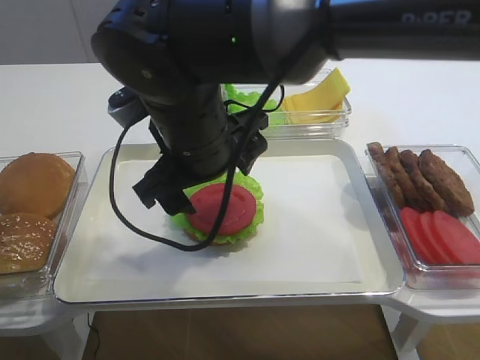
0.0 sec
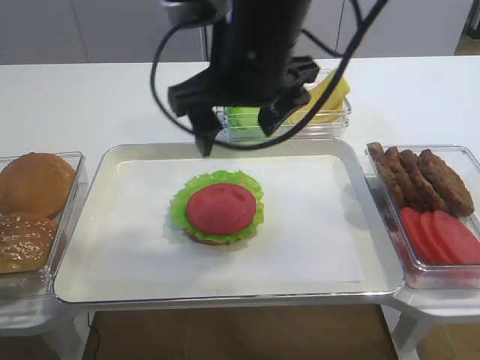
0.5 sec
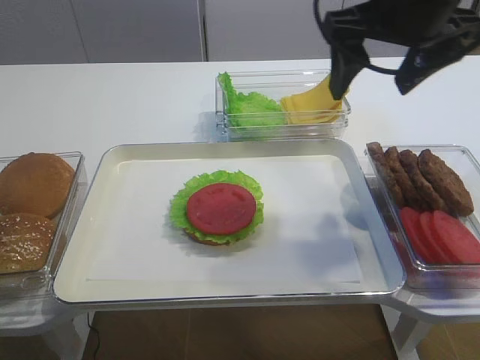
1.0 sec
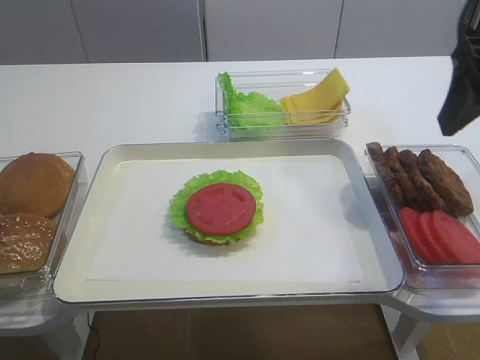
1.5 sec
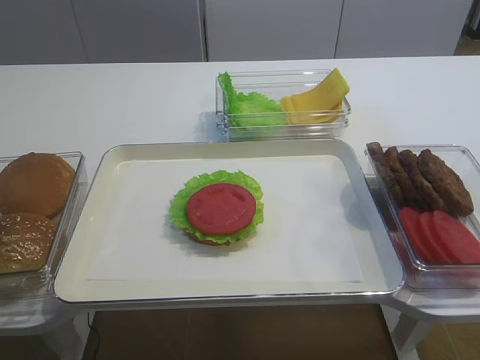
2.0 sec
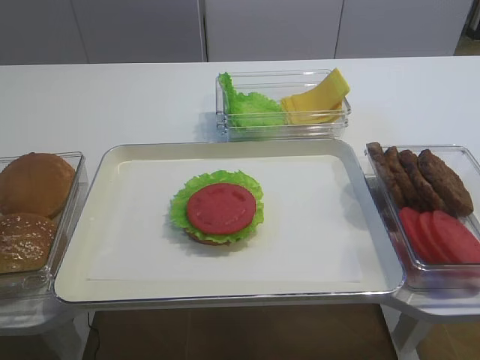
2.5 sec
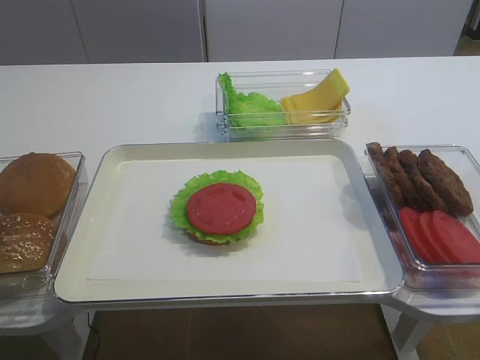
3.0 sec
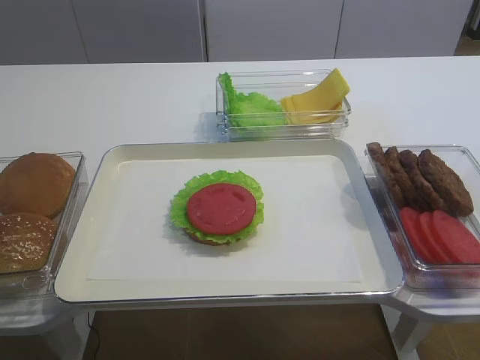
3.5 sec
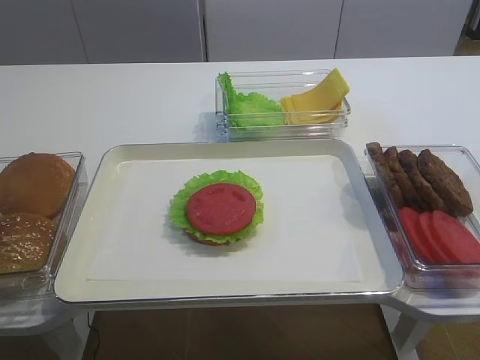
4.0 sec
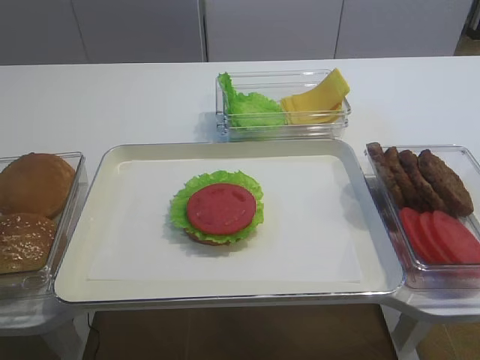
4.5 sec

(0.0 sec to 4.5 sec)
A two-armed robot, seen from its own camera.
0.0 sec - 2.0 sec: The right gripper moves to the right and backward, some 35 cm.

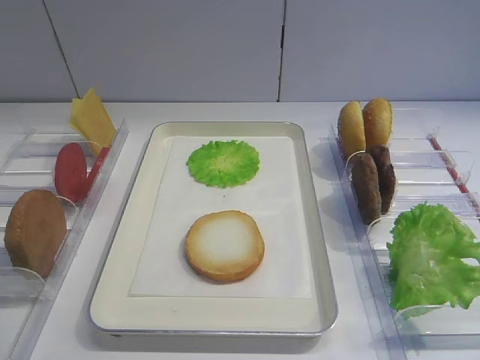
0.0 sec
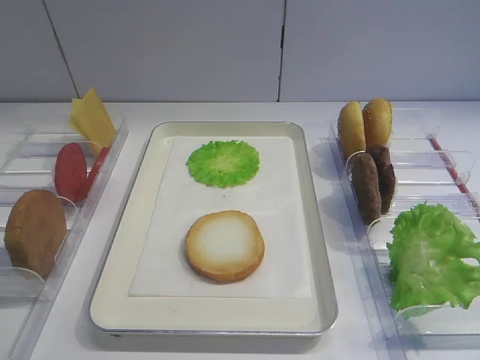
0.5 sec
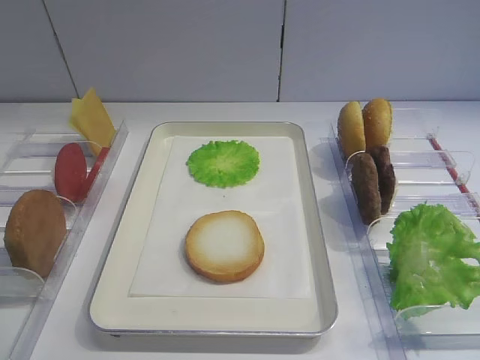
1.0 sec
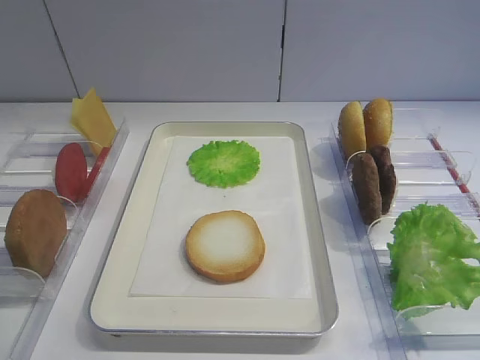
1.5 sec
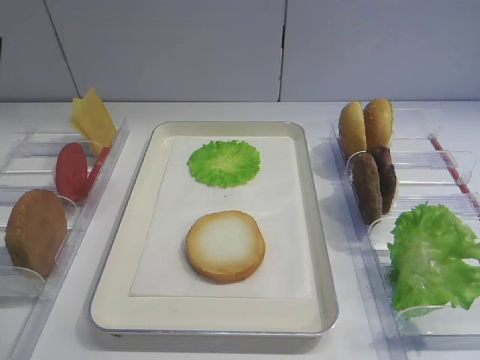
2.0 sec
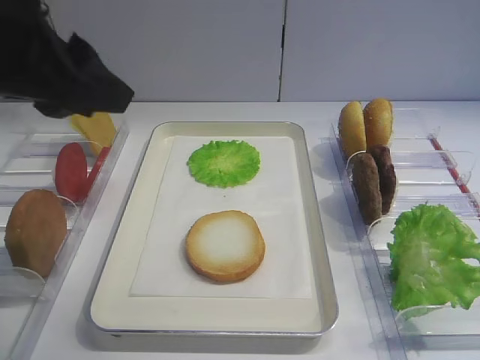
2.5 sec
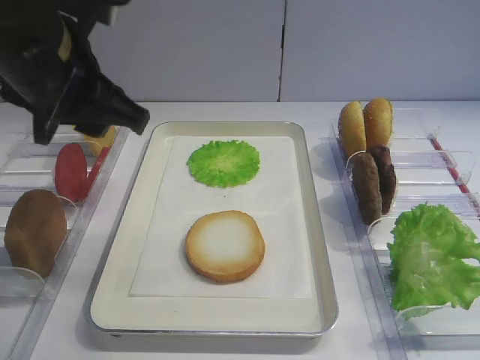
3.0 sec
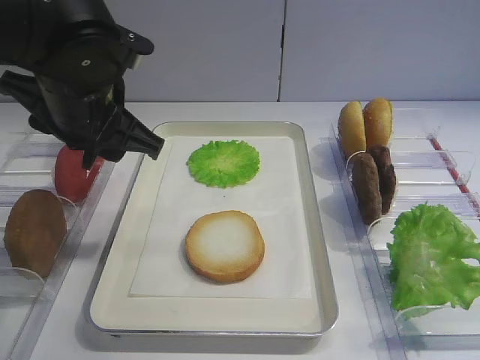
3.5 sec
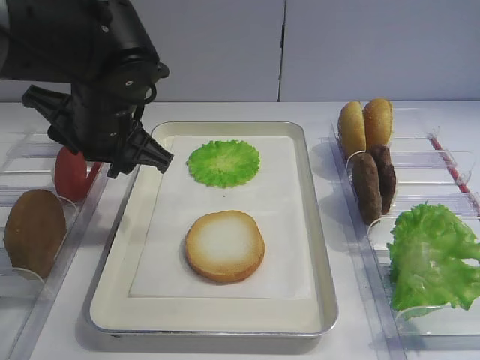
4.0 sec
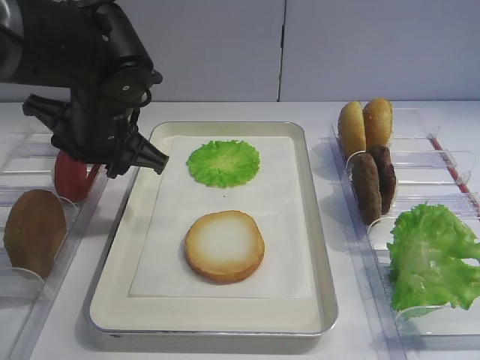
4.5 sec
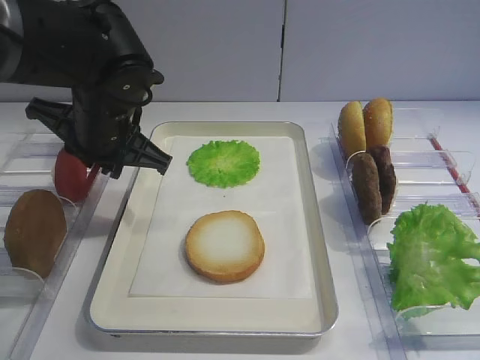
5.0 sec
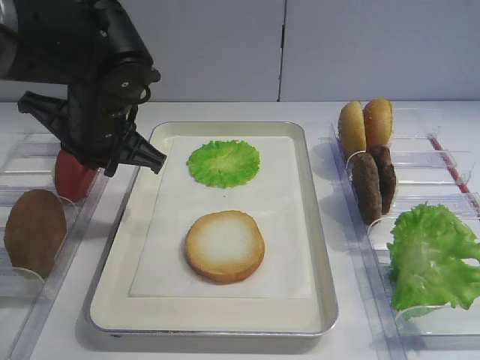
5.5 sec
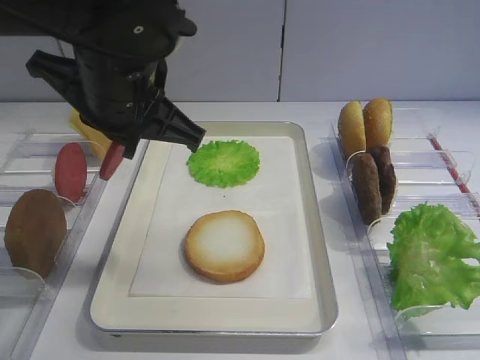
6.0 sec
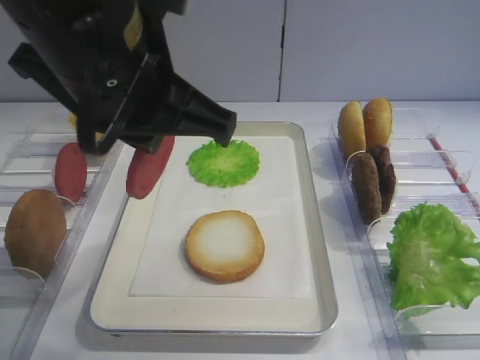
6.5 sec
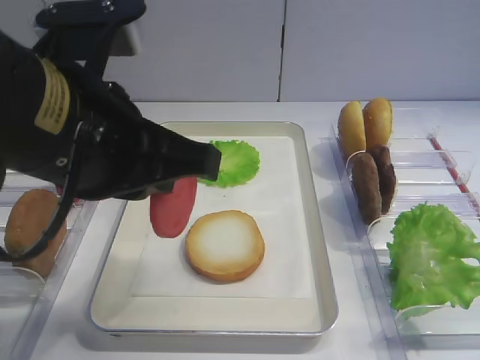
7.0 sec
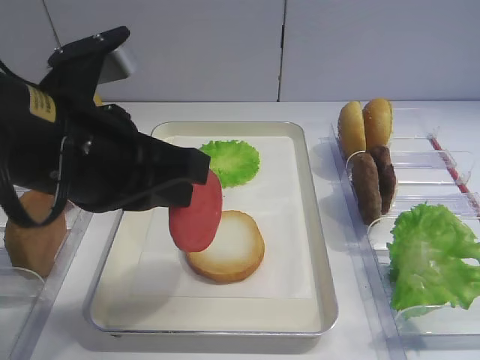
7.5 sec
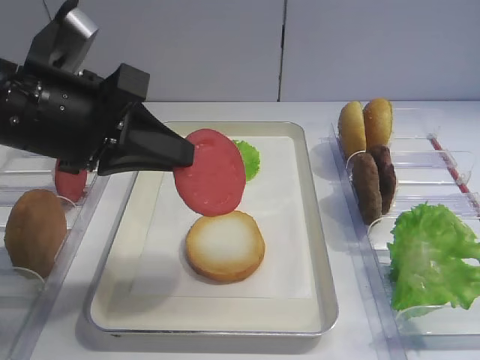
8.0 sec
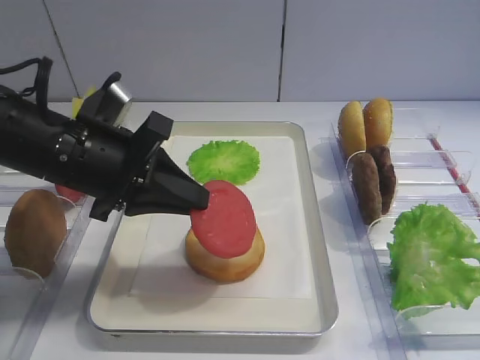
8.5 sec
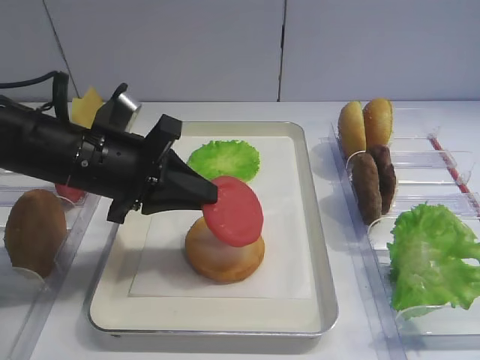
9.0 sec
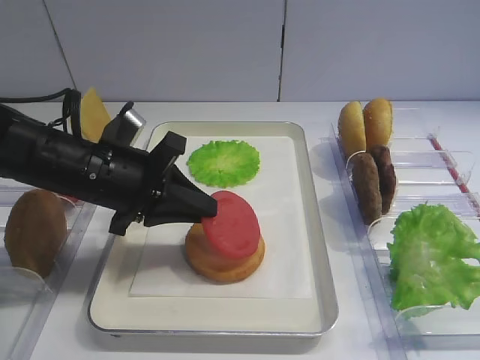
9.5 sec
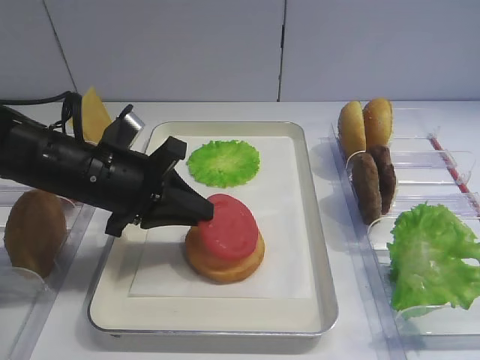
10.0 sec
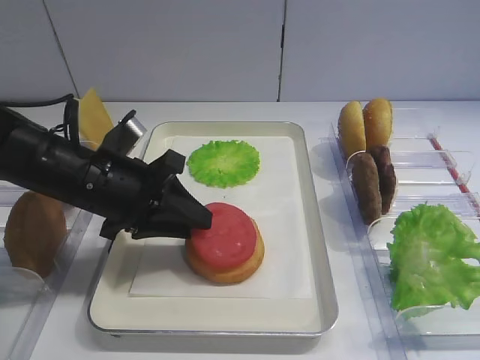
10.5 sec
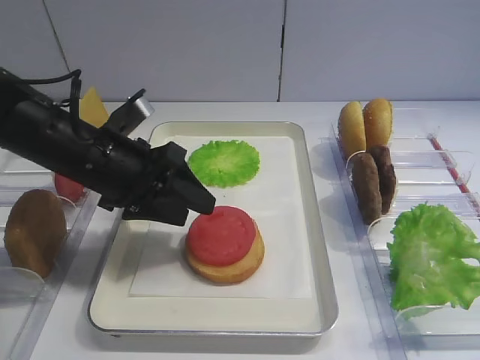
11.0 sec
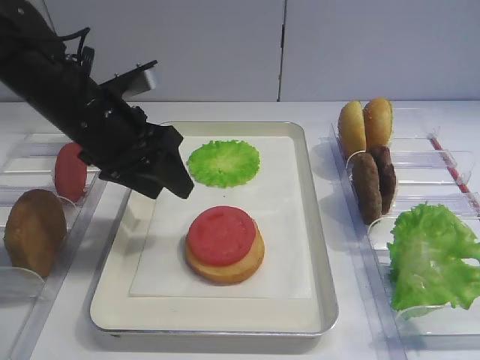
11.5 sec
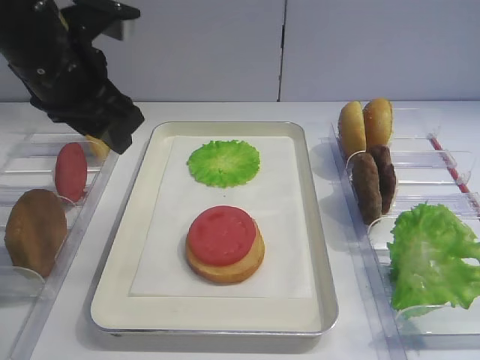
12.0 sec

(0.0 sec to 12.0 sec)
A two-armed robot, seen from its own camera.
Step, 0.0 sec - 5.5 sec: Pick up the tomato slice with the left gripper.
Step, 6.0 sec - 11.5 sec: Place the tomato slice on the bread slice with the left gripper.
2.0 sec - 4.0 sec: The left gripper travels forward, downward and to the right by approximately 25 cm.
4.0 sec - 6.0 sec: The left gripper goes approximately 5 cm upward, and closes.
6.0 sec - 8.0 sec: The left gripper is displaced to the left and backward by about 10 cm.
8.0 sec - 10.0 sec: The left gripper goes some 10 cm downward and forward.
10.0 sec - 12.0 sec: The left gripper goes roughly 10 cm upward, and opens its fingers.

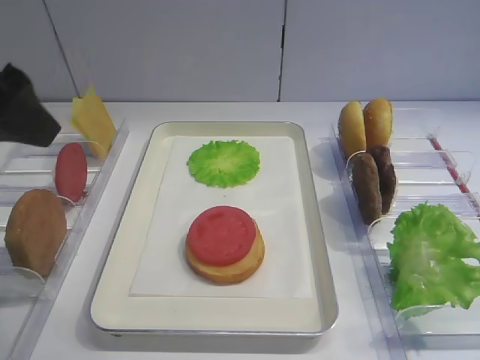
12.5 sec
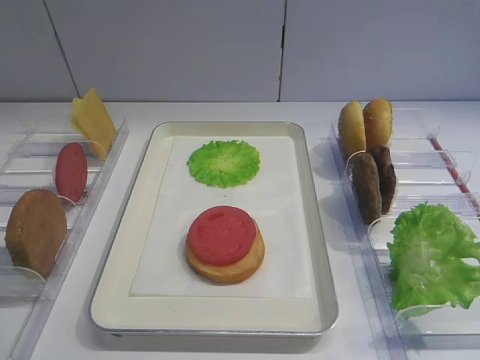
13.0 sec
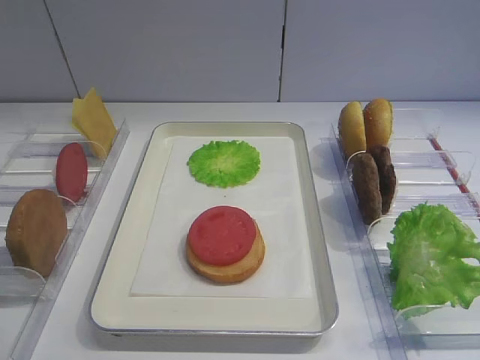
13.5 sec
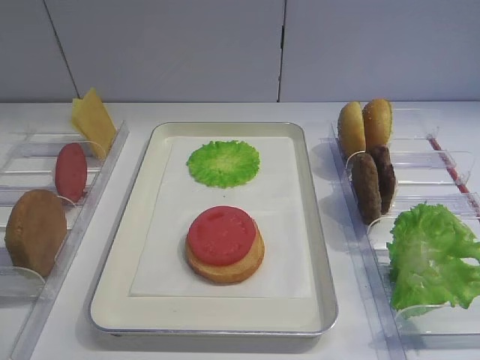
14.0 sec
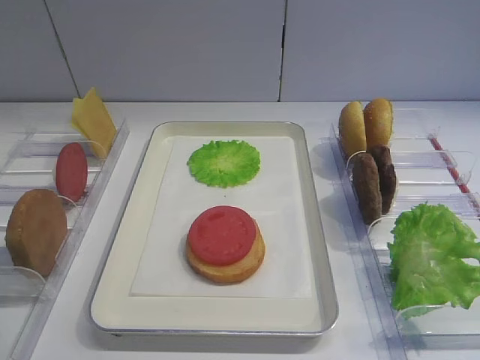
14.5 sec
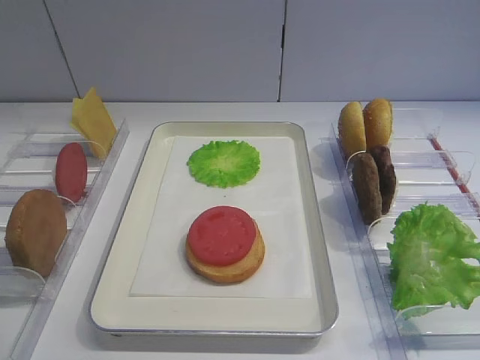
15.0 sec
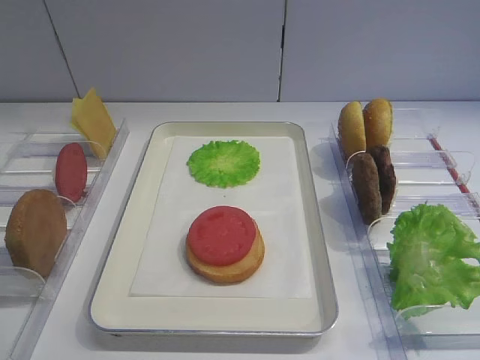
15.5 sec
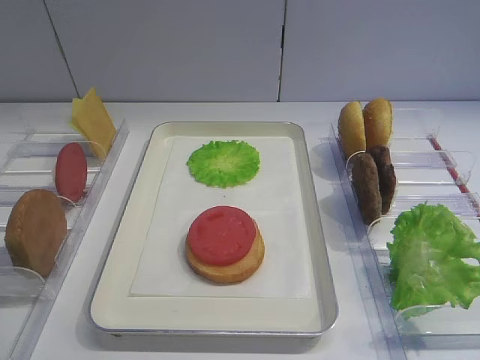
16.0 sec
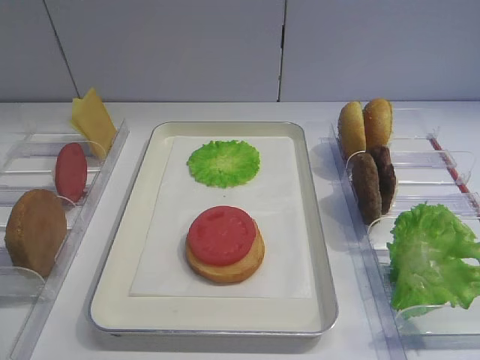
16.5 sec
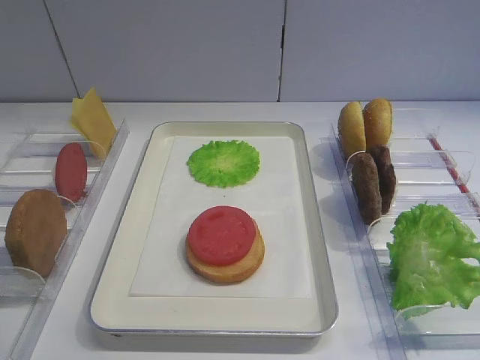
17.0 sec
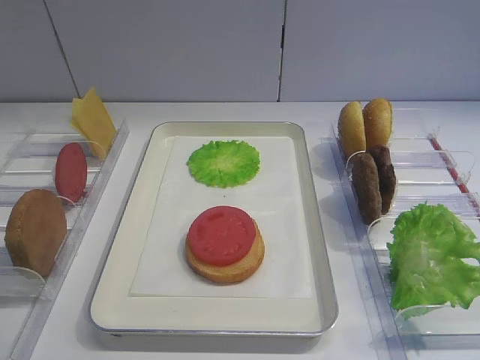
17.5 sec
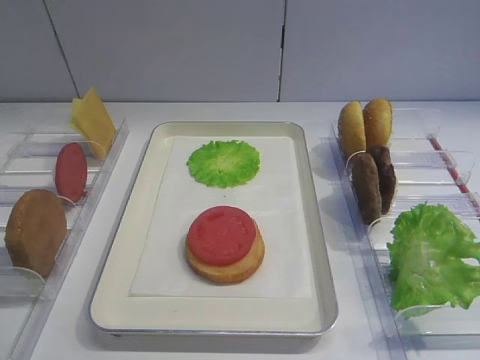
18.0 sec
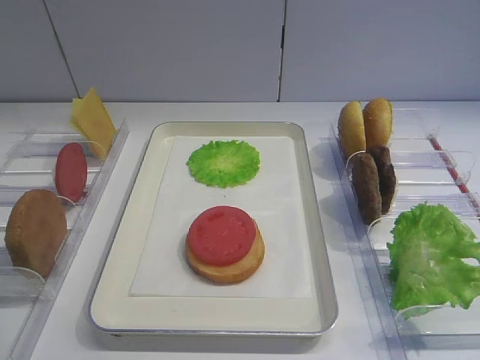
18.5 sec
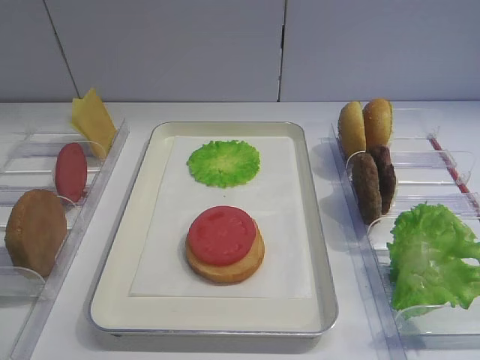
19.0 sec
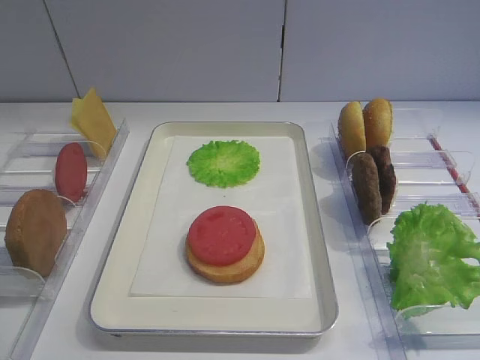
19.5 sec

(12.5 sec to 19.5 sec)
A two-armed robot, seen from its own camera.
12.5 sec - 14.5 sec: The left gripper goes approximately 25 cm backward, downward and to the left.
16.0 sec - 19.5 sec: Both grippers stay about where they are.

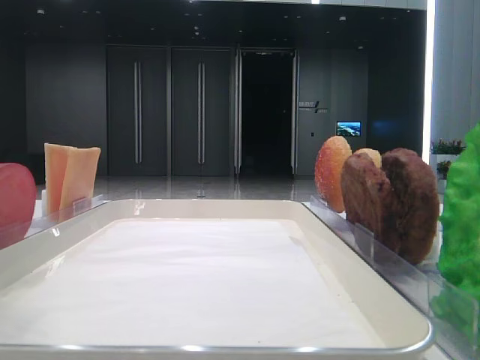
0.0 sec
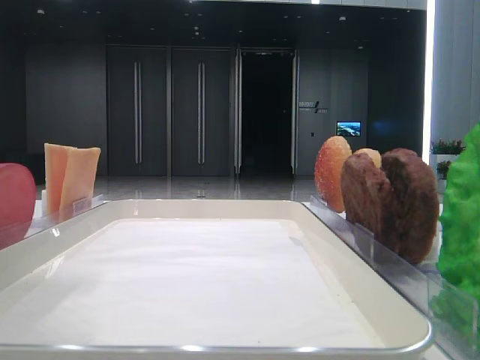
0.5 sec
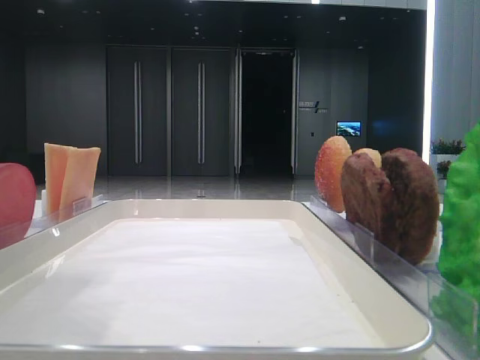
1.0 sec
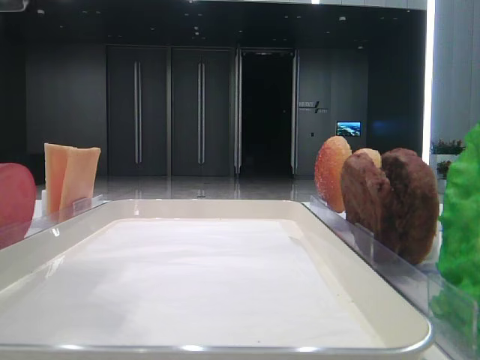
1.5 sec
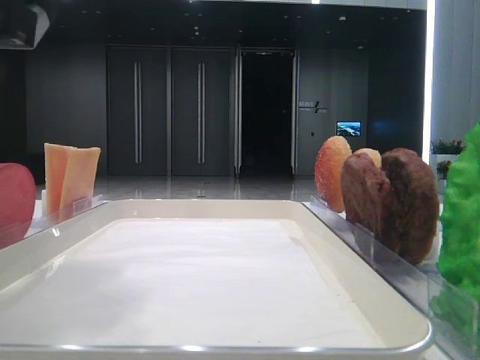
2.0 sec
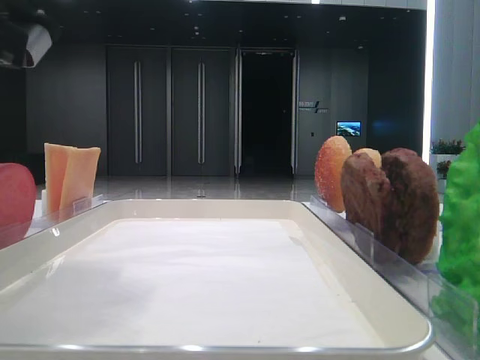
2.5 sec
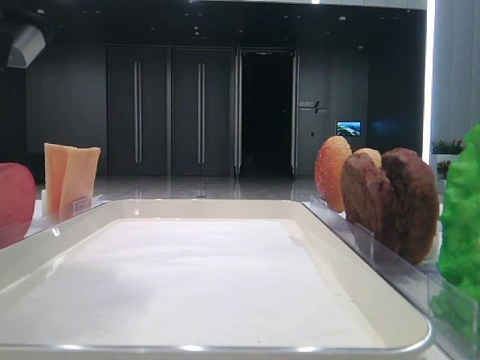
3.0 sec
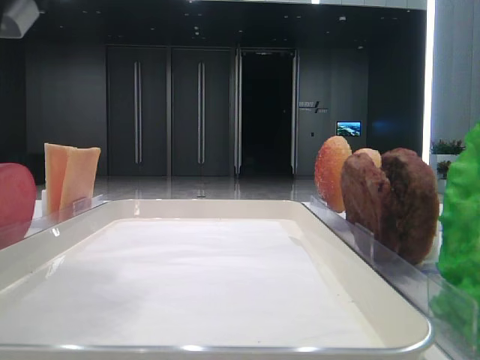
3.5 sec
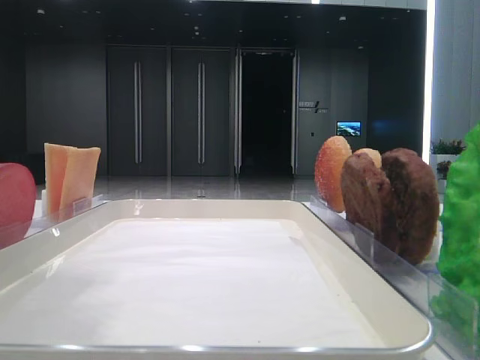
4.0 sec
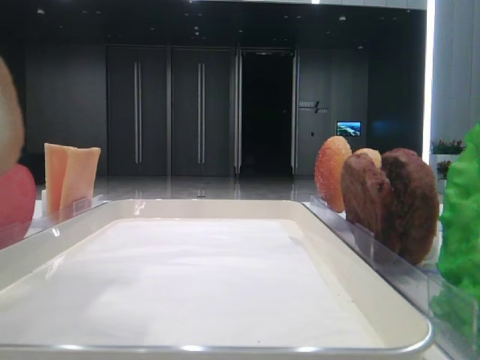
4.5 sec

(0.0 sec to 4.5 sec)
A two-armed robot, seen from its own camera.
Step, 0.0 sec - 3.0 sec: Pick up the bottom bread with the left hand.
0.0 sec - 2.0 sec: The left gripper shifts about 10 cm downward and to the right.
2.0 sec - 4.5 sec: The left gripper goes about 5 cm upward, and closes its fingers.
